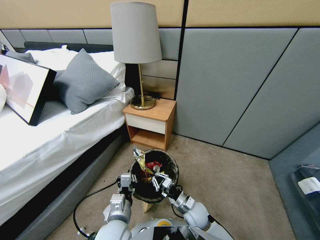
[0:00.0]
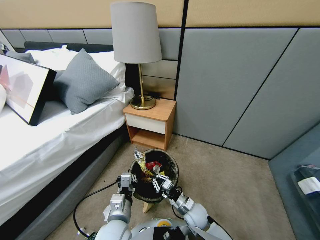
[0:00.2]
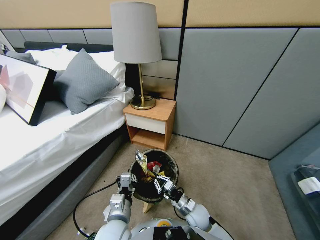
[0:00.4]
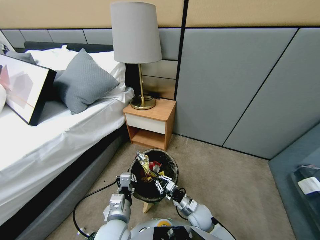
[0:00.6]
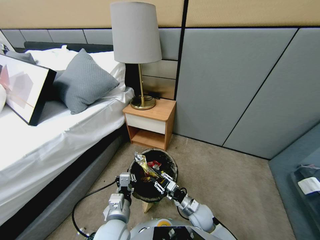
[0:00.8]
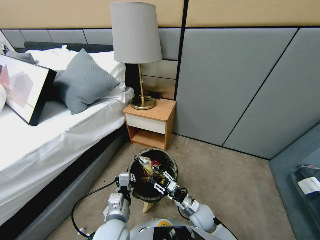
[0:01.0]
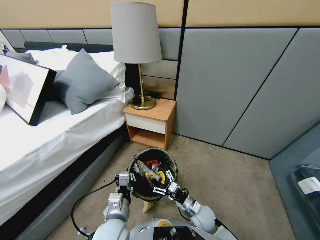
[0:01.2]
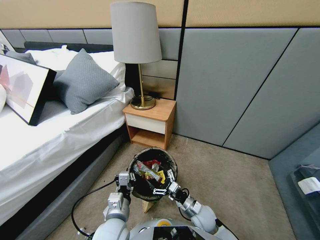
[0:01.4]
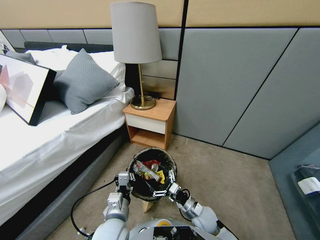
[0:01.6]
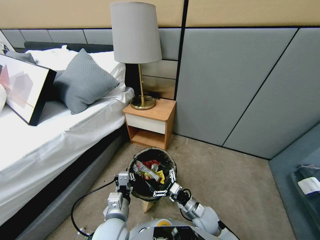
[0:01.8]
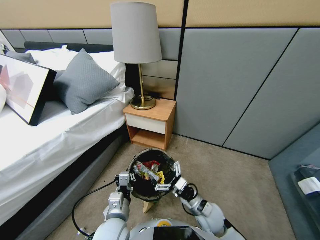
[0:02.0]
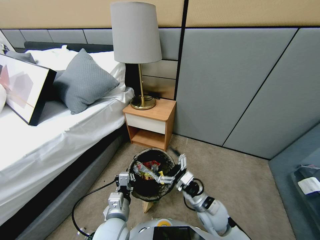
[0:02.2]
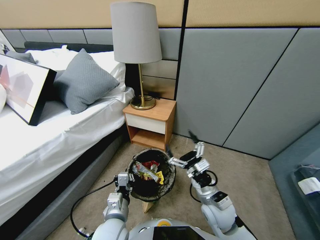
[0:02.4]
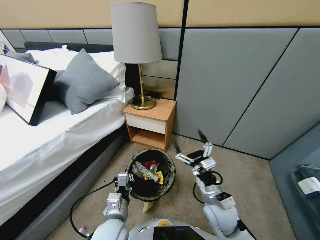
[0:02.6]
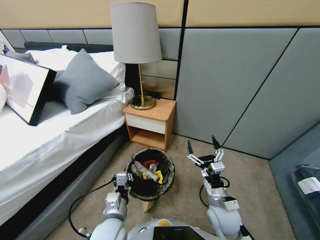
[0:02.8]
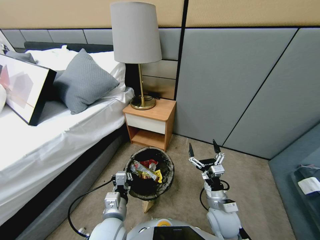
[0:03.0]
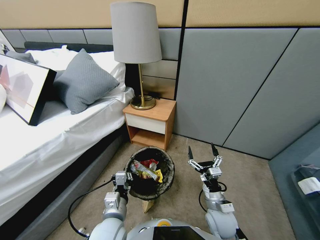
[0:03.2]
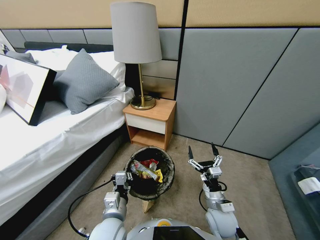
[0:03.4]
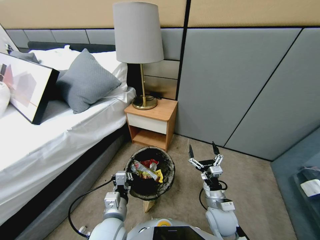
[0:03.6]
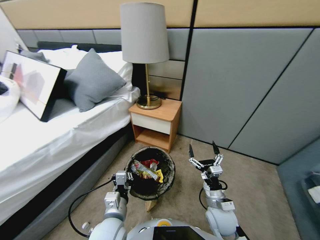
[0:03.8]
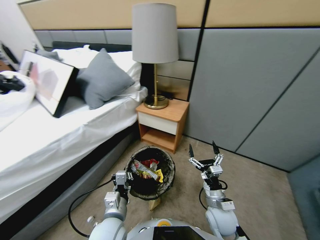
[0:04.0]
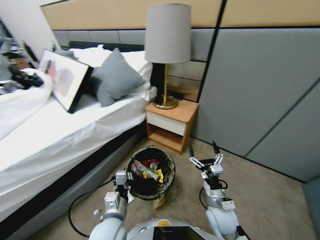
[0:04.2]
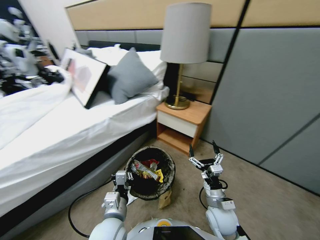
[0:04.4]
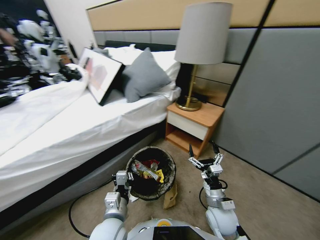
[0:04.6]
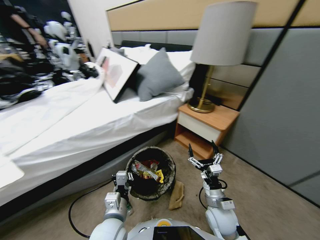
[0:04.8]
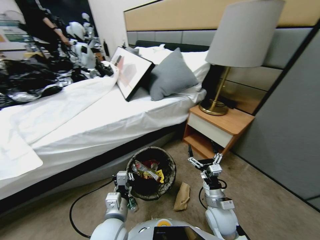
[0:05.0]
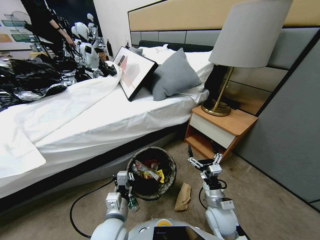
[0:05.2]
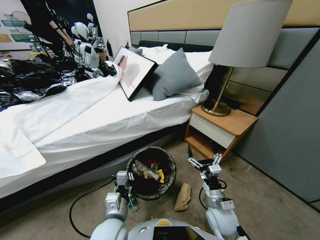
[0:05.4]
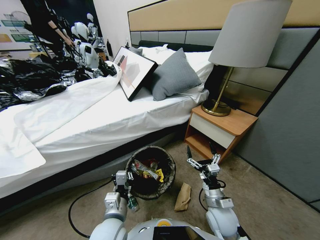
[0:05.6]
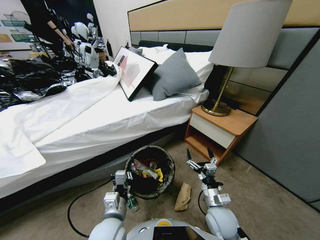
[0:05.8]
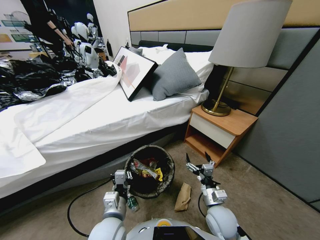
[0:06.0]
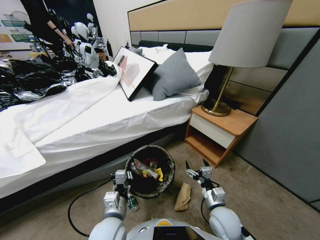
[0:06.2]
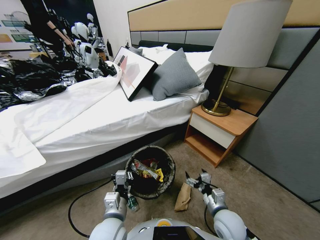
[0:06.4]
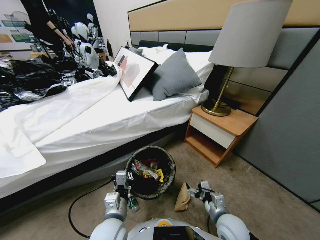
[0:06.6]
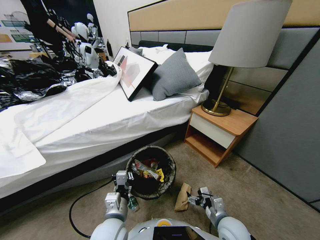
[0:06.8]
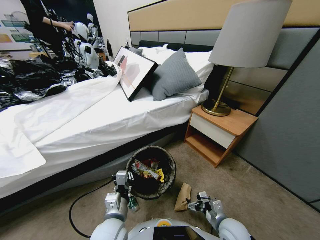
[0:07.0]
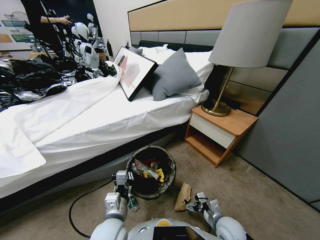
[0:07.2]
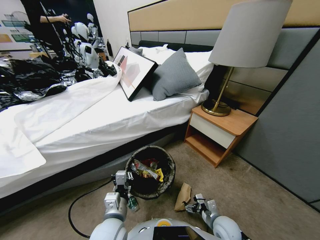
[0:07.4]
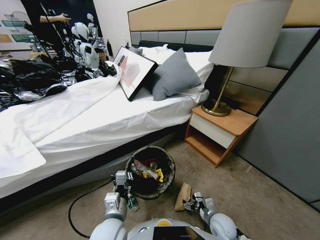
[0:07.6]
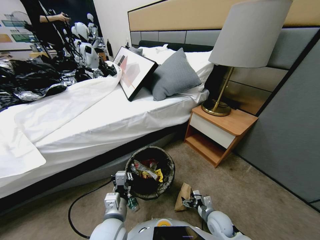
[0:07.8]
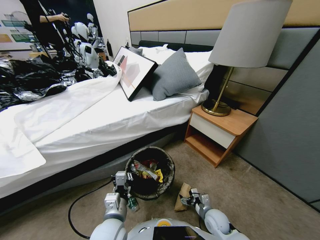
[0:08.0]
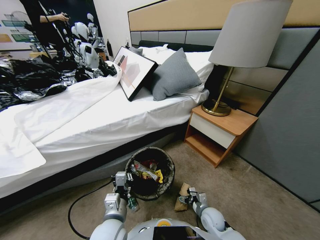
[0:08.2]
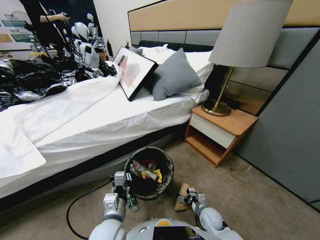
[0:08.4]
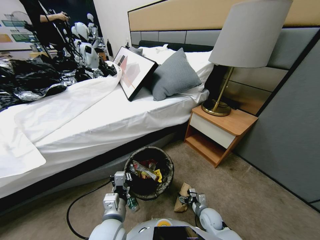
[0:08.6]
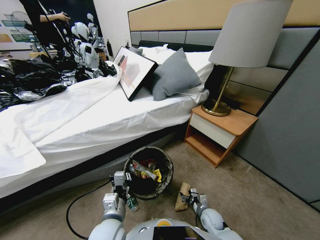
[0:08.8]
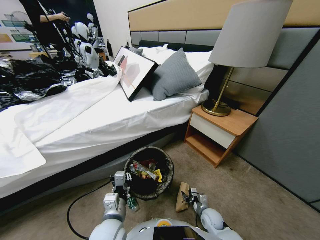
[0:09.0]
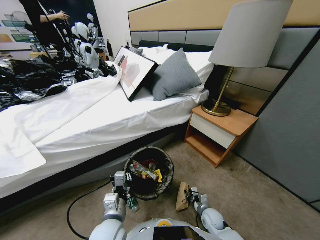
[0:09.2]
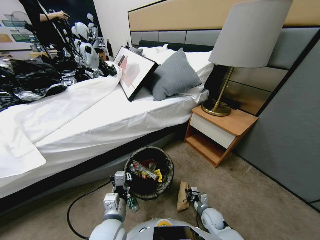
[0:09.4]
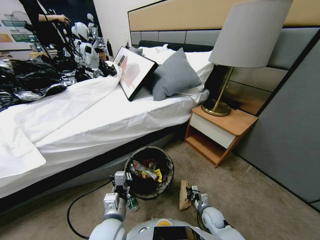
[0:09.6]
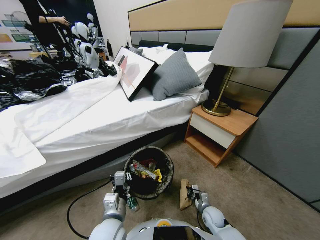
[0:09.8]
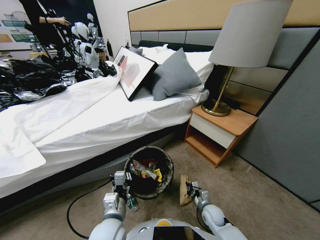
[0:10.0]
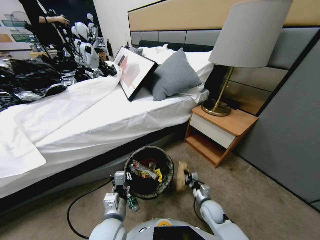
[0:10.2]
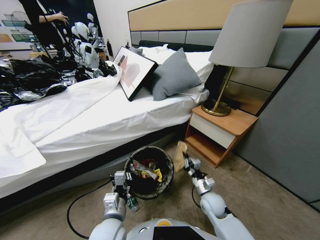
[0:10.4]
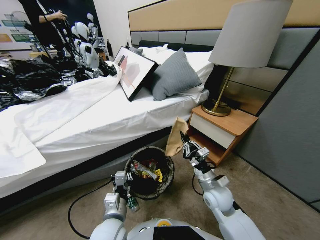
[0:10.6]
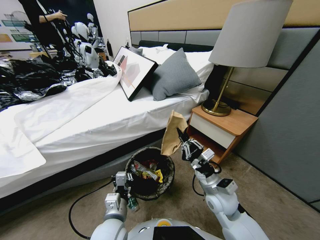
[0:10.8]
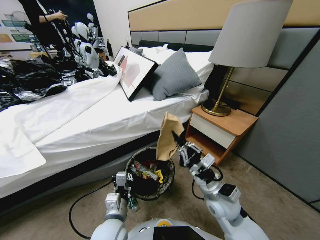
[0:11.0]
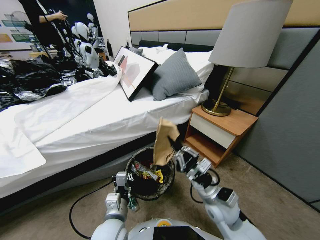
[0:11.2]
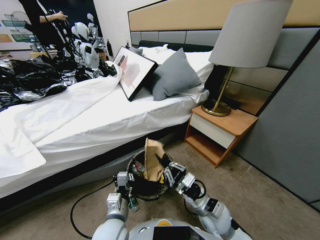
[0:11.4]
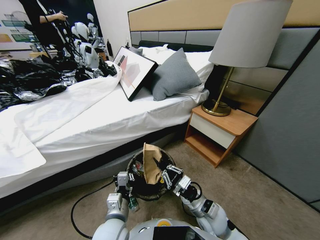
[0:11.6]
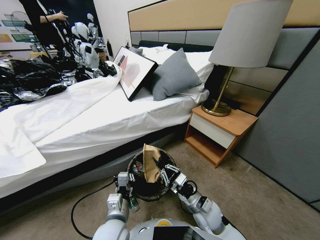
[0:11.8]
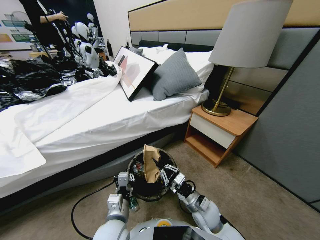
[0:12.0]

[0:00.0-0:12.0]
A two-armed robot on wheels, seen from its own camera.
Task of the whole recording: Pick up the trash bin, then pick up the garbage from the floor and place it into the trash bin.
0:00.0 to 0:01.6: The right gripper opens its fingers.
0:01.6 to 0:03.0: The right gripper travels upward by roughly 5 cm.
0:06.0 to 0:07.6: The right gripper goes some 10 cm downward.
0:07.6 to 0:09.0: The right gripper travels downward by roughly 5 cm, and closes.
0:09.0 to 0:10.4: The right gripper is displaced upward by approximately 20 cm, and closes its fingers.
0:10.4 to 0:12.0: The right gripper heads to the left, covering roughly 5 cm, and goes upward and returns, some 10 cm each way.

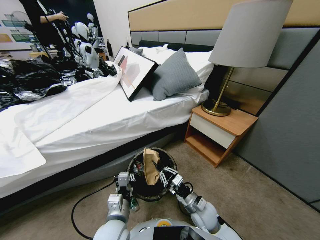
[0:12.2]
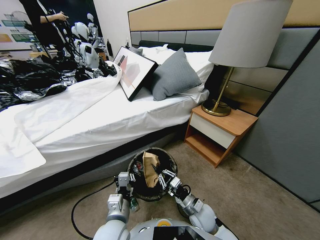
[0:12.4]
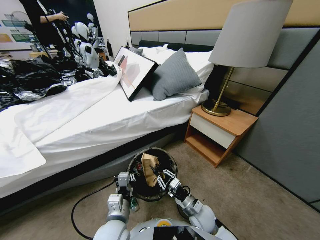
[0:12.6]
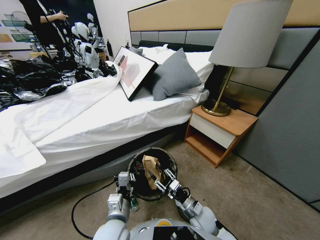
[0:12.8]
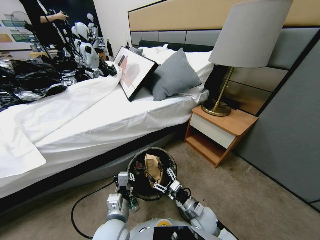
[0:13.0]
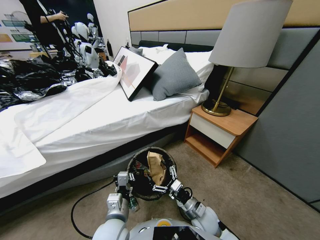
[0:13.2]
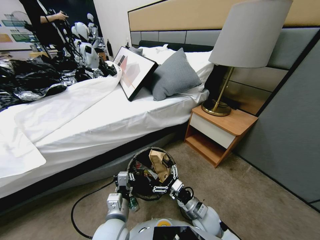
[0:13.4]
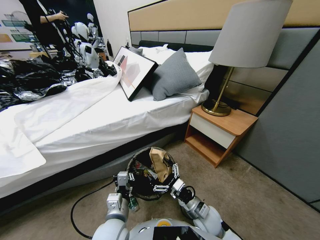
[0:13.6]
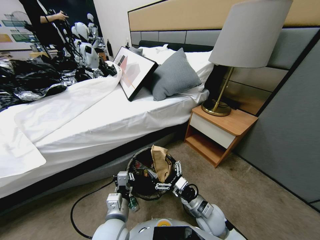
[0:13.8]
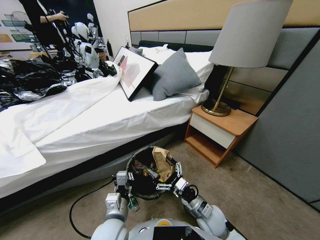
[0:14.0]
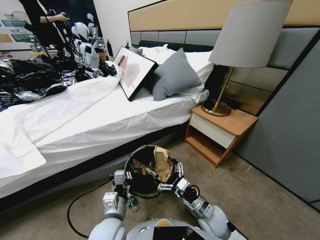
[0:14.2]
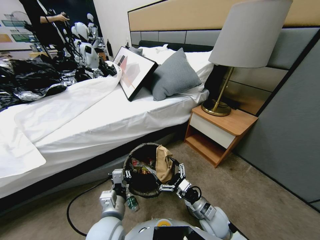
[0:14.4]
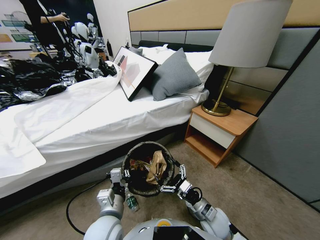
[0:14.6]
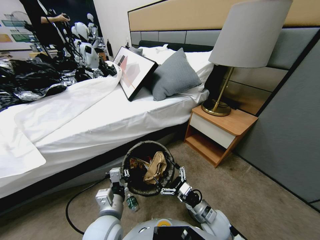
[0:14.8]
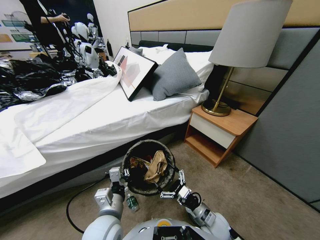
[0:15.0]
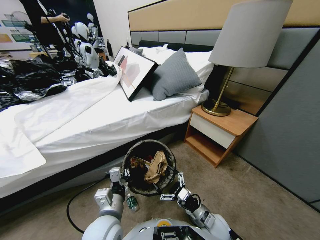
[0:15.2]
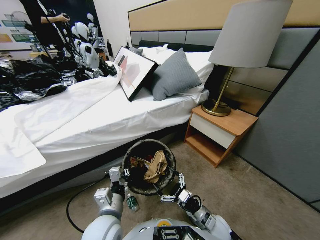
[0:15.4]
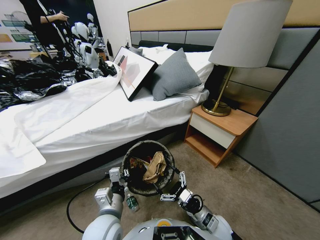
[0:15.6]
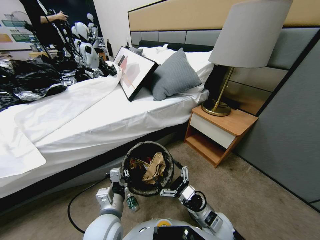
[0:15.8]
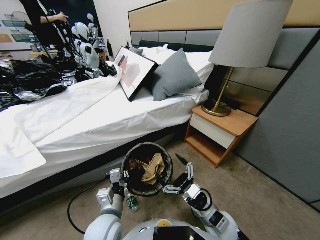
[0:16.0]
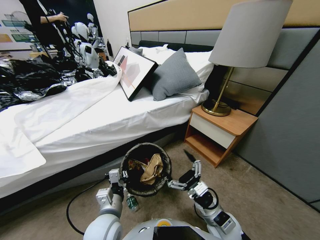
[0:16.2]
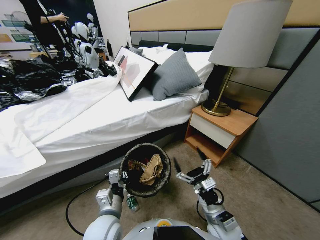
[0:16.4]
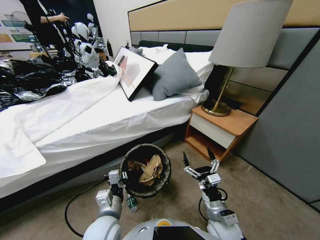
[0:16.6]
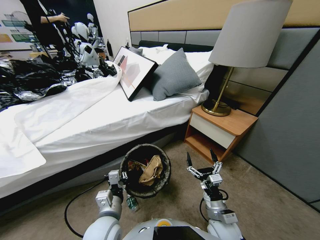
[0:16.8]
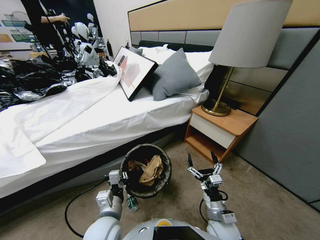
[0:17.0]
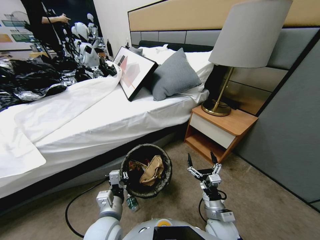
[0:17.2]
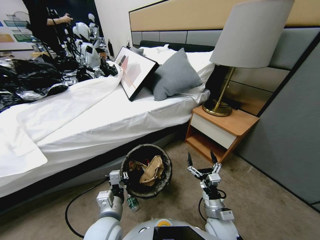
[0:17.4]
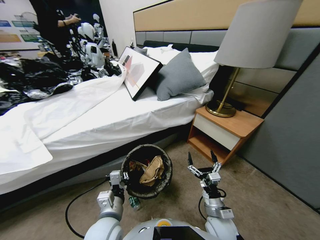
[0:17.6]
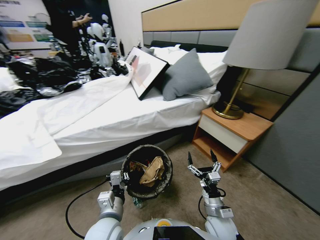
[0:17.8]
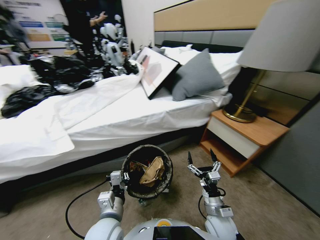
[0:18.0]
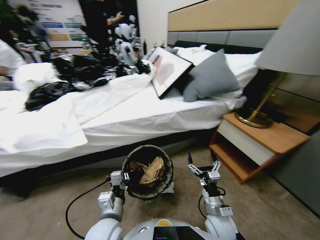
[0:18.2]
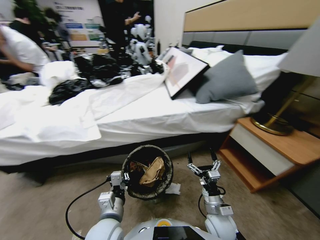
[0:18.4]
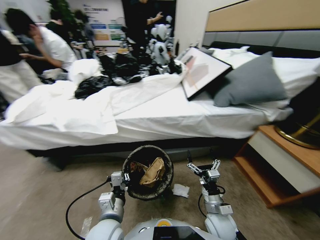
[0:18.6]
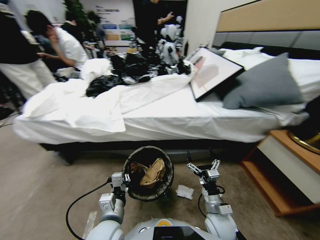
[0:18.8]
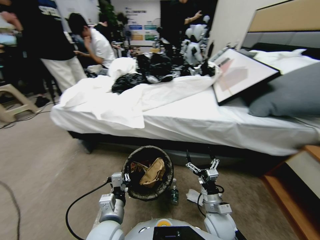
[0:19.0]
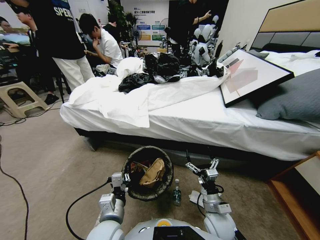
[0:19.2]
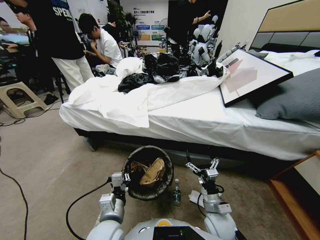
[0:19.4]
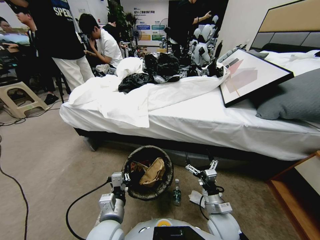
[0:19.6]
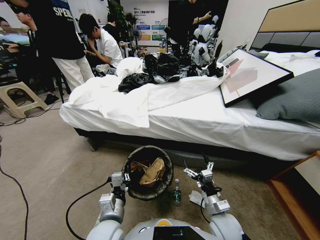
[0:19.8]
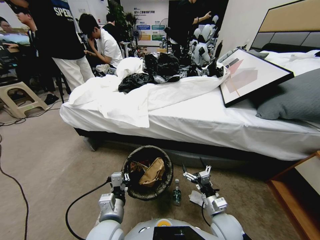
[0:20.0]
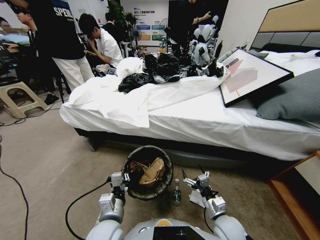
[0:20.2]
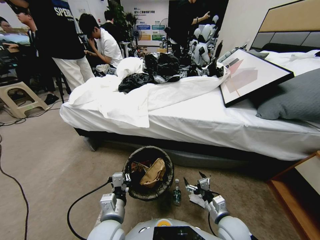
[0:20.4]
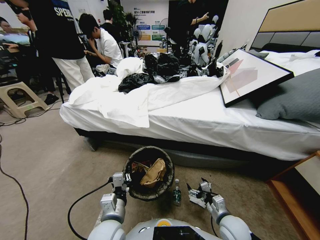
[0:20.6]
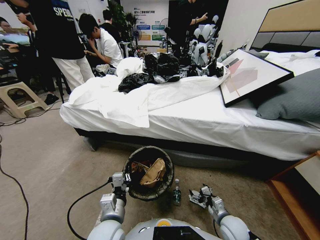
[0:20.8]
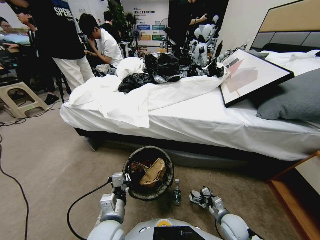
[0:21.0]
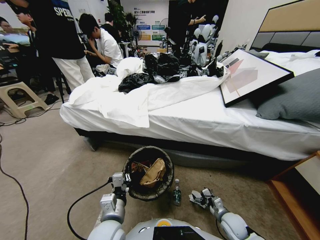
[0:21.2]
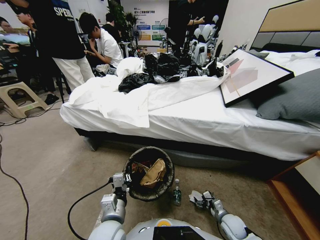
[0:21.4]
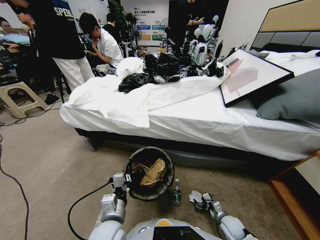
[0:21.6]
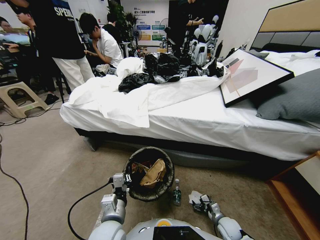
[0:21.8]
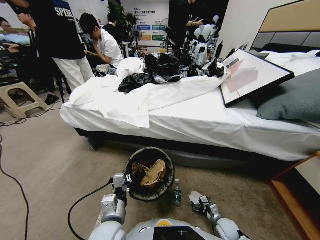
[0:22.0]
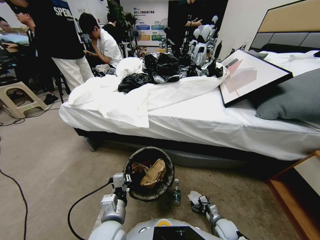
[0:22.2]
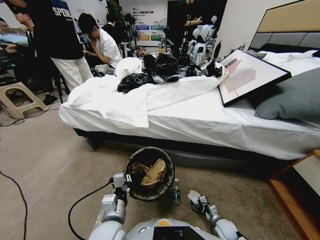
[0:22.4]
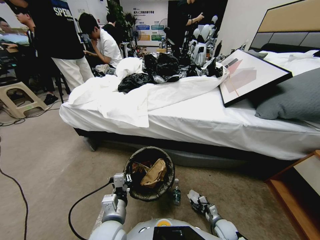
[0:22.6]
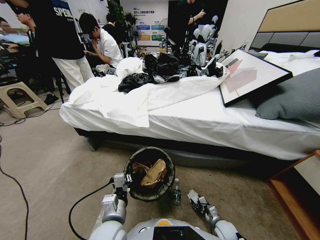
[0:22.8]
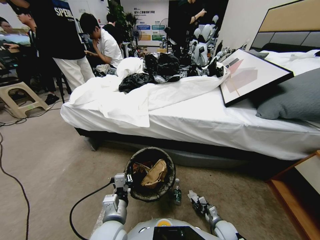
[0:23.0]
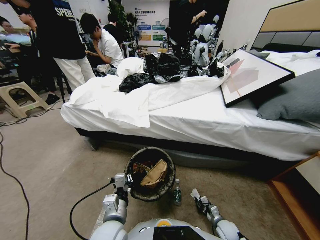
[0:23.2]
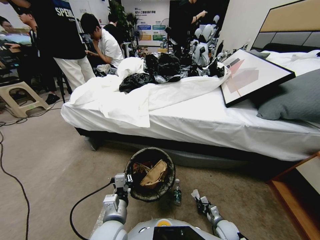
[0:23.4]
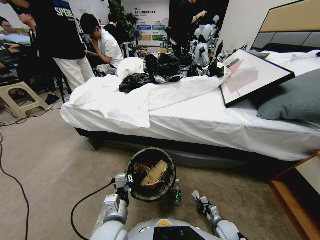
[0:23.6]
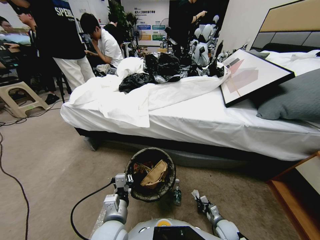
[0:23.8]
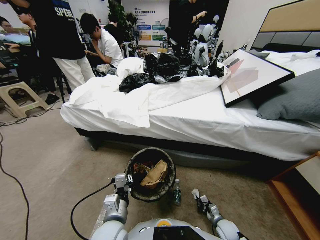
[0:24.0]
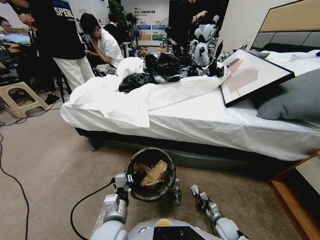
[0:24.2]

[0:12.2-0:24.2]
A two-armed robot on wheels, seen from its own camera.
Task of the whole recording: Pick up the trash bin, then pick up the garbage from the floor and place it into the trash bin.
0:12.2 to 0:13.8: The right gripper opens.
0:13.8 to 0:15.2: The right gripper changes place by approximately 5 cm.
0:15.2 to 0:16.6: The right gripper moves upward, about 5 cm.
0:19.8 to 0:21.2: The right gripper travels downward and to the right by some 15 cm.
0:21.2 to 0:22.6: The right gripper travels downward by about 5 cm, and closes.
0:22.6 to 0:24.2: The right gripper closes up.
